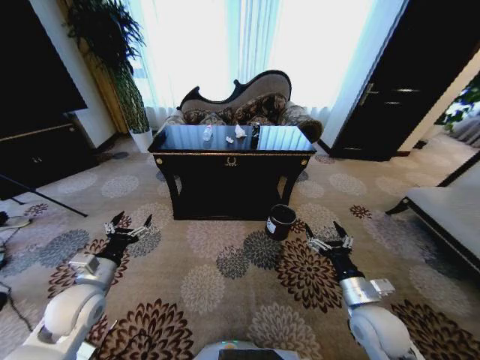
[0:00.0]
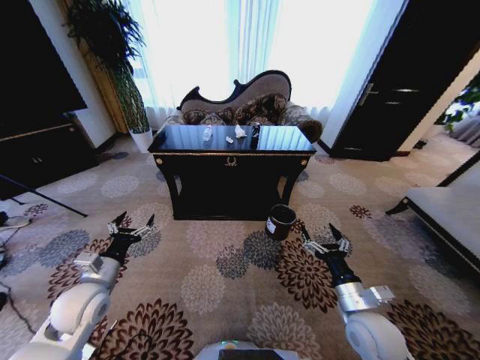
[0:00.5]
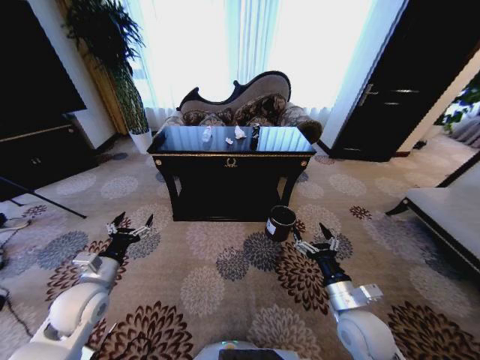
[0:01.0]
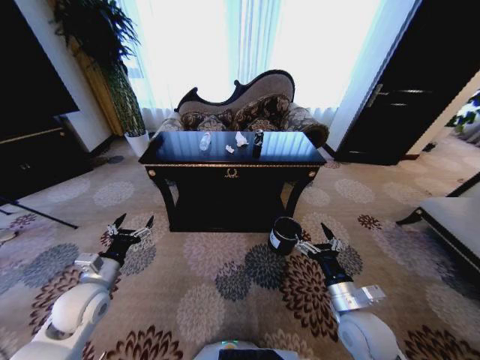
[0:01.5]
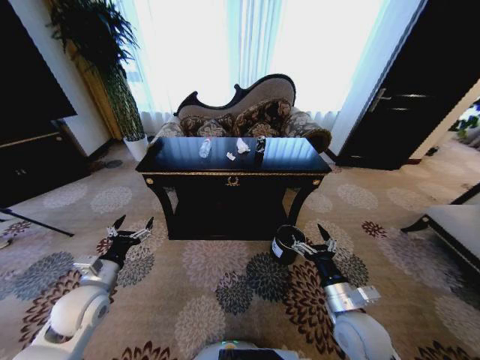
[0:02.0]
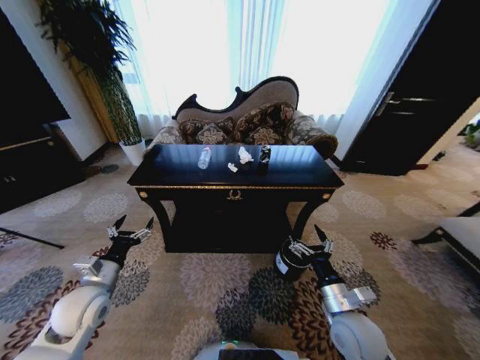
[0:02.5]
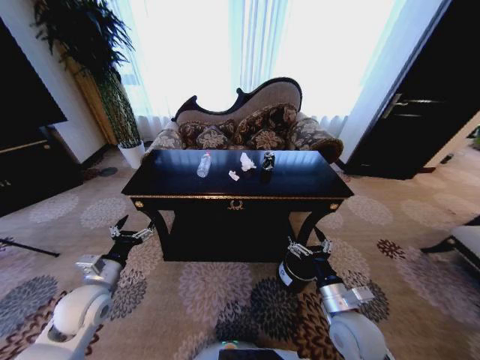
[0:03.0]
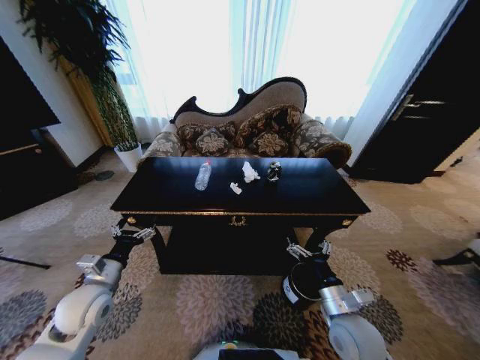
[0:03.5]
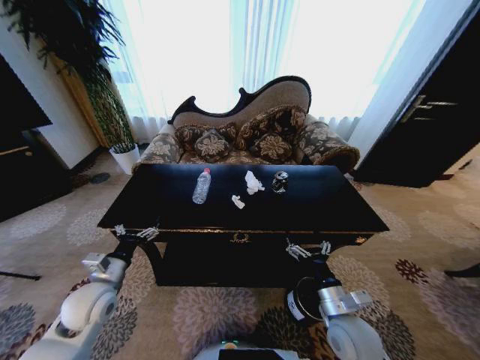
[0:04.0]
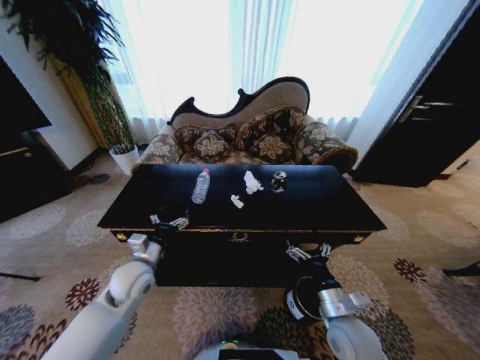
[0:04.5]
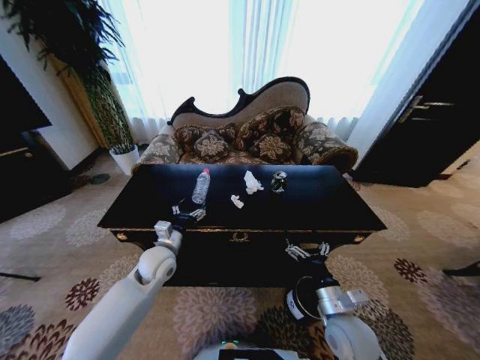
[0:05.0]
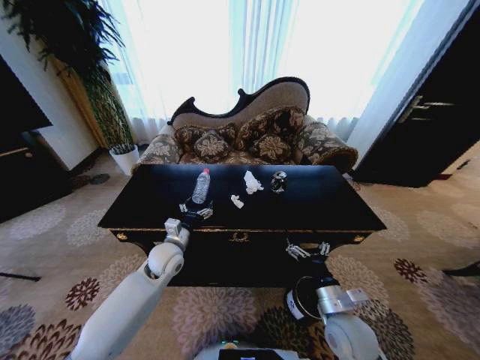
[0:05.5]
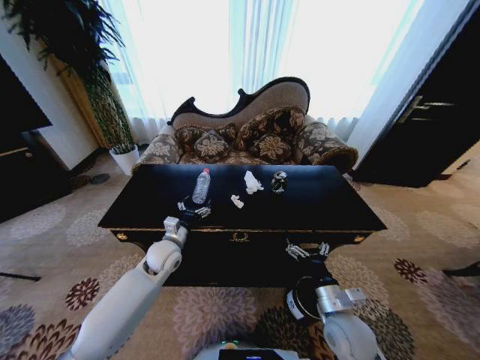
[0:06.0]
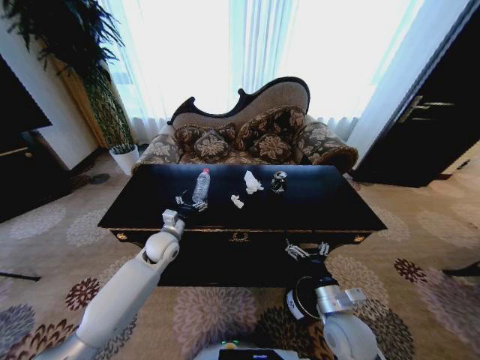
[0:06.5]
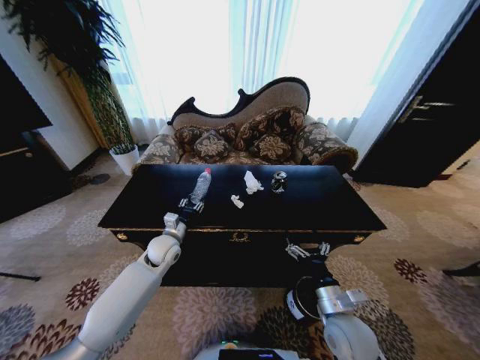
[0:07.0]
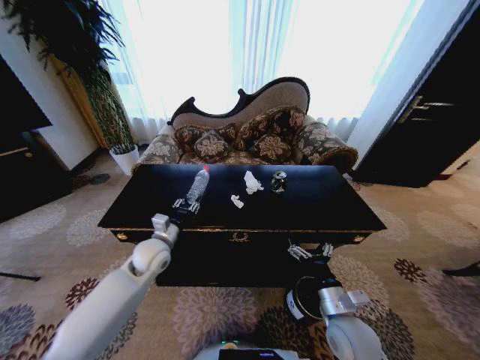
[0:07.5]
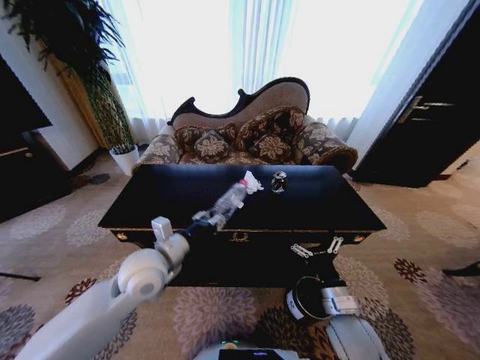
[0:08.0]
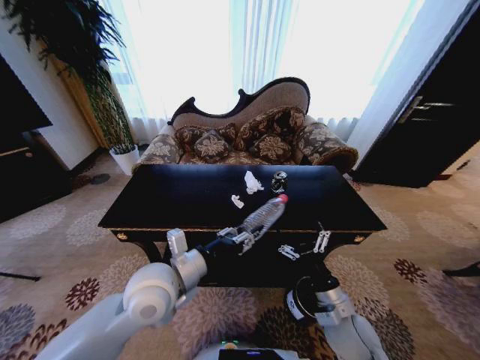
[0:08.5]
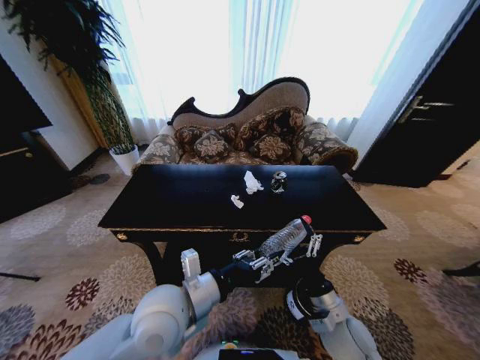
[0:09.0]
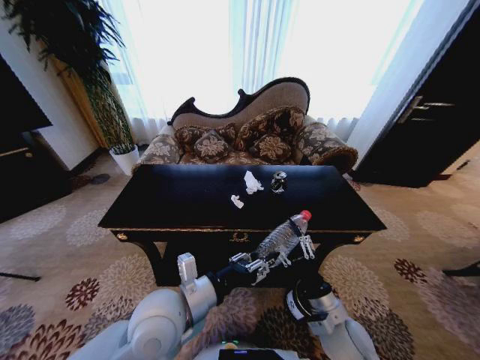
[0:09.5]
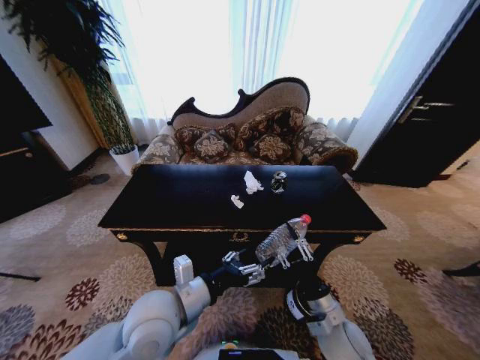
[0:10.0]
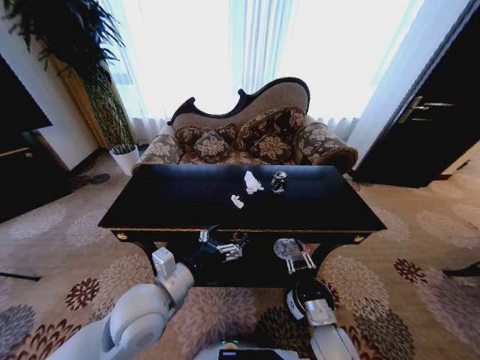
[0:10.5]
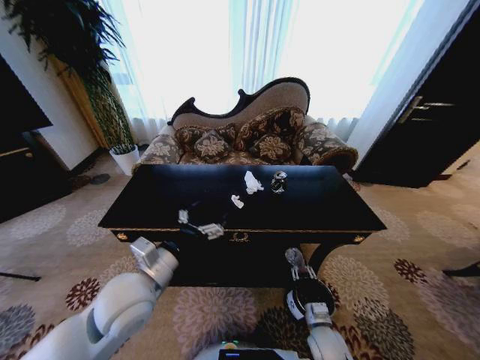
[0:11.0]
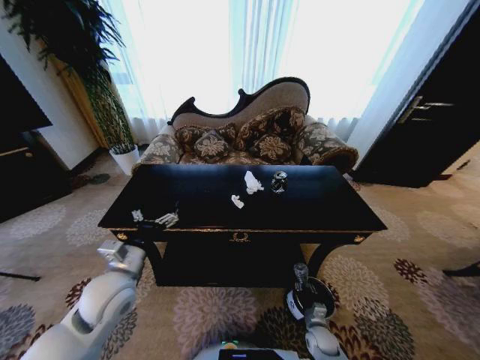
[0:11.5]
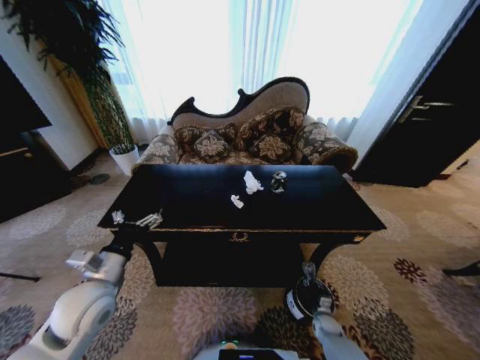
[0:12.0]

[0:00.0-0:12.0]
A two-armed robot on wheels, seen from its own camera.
Task of the whole recording: Move to the front of the table and place the trash on the table into the trash bin.
0:04.0 to 0:06.0: The left gripper goes about 20 cm to the right and forward.
0:06.0 to 0:08.0: The left gripper moves upward and backward, approximately 15 cm, and closes up.
0:08.0 to 0:10.0: The left gripper goes roughly 5 cm backward, and opens up. The right gripper closes.
0:10.0 to 0:12.0: The right gripper goes about 35 cm downward and to the right. The left gripper goes approximately 15 cm to the left, and opens up.

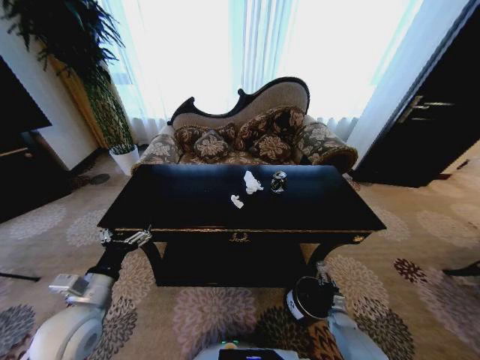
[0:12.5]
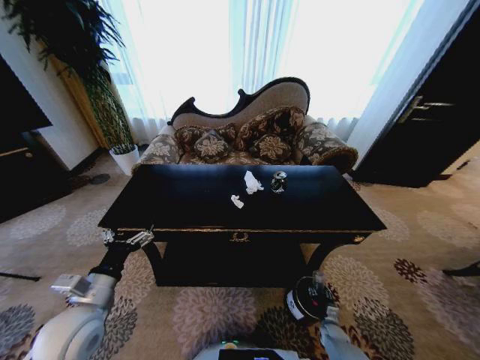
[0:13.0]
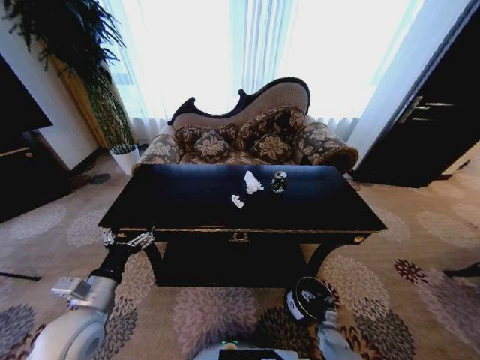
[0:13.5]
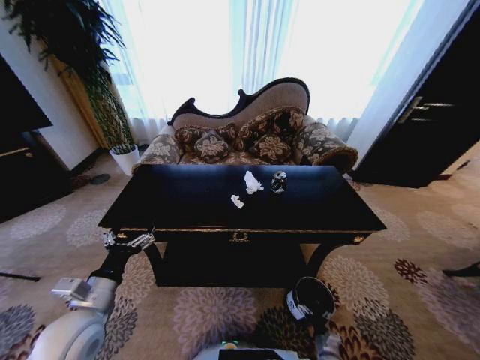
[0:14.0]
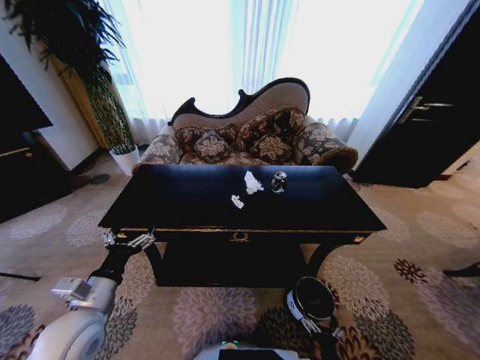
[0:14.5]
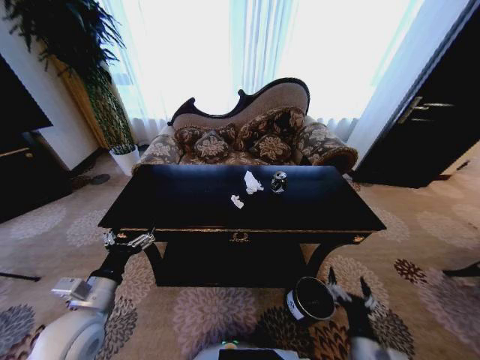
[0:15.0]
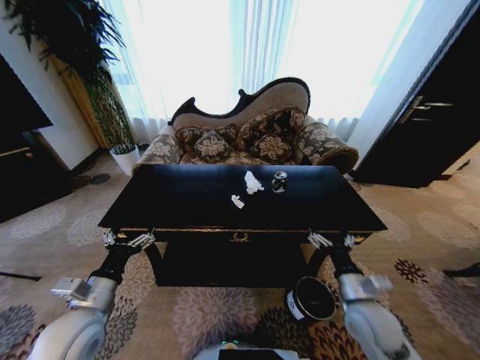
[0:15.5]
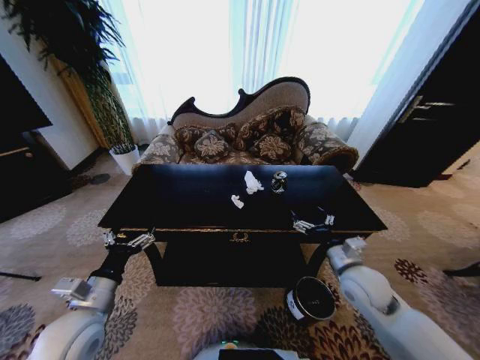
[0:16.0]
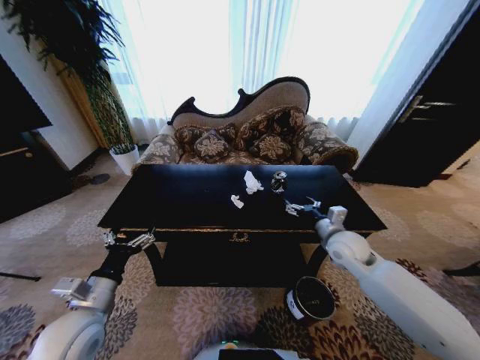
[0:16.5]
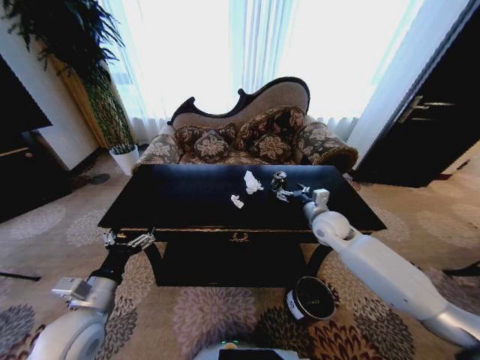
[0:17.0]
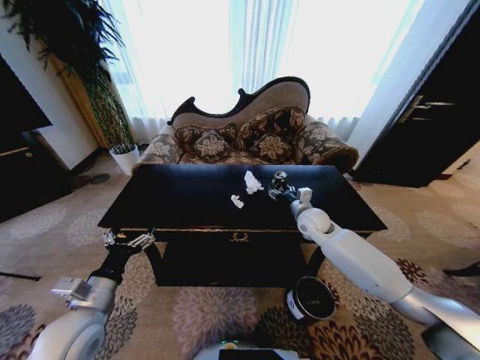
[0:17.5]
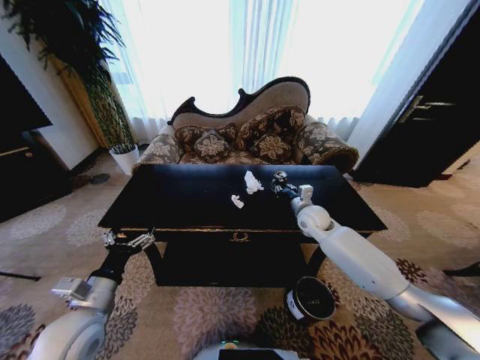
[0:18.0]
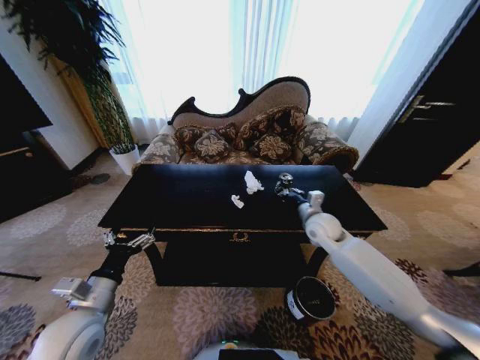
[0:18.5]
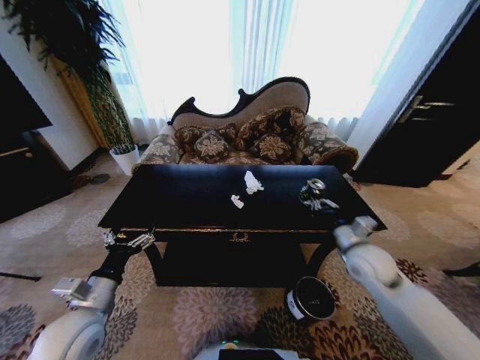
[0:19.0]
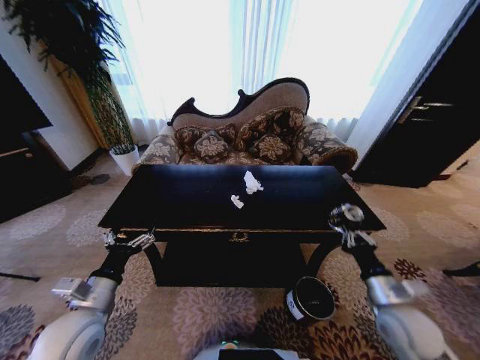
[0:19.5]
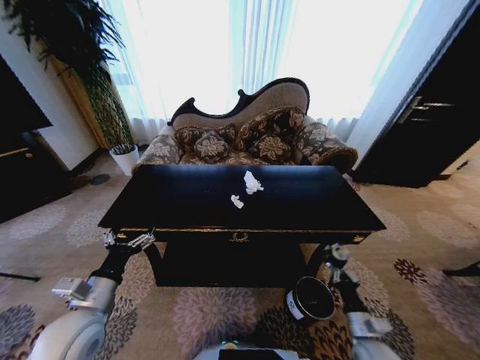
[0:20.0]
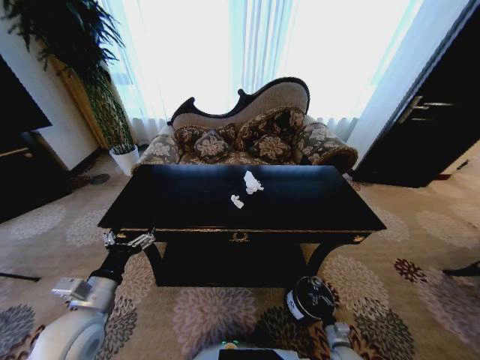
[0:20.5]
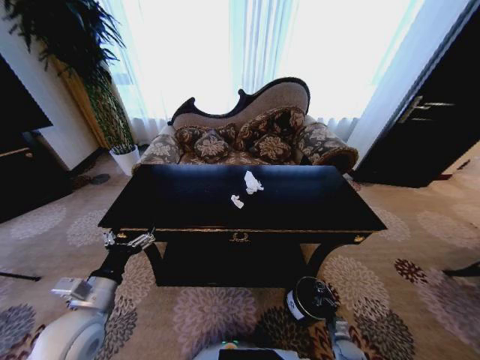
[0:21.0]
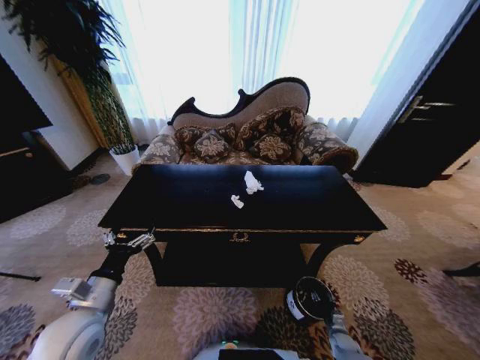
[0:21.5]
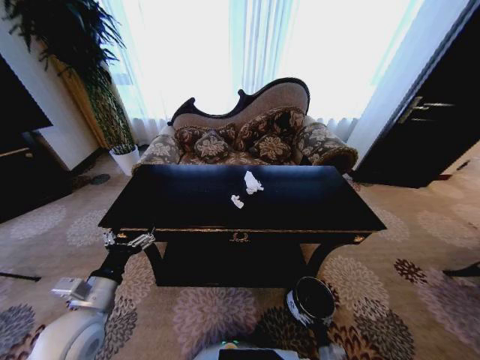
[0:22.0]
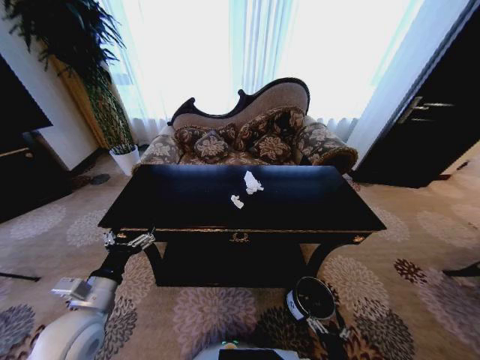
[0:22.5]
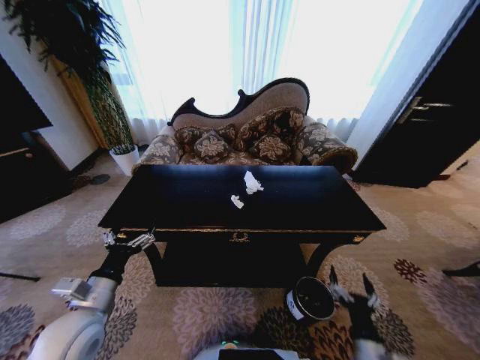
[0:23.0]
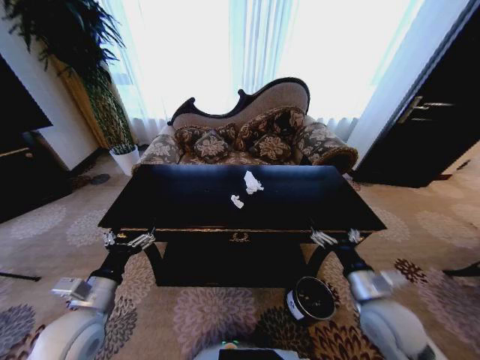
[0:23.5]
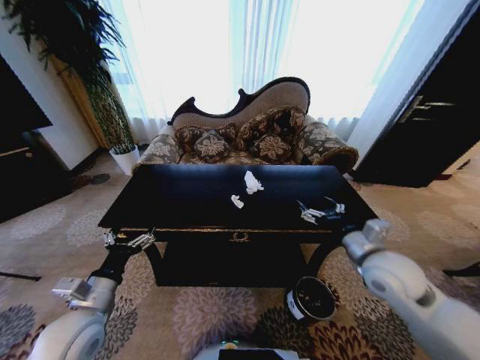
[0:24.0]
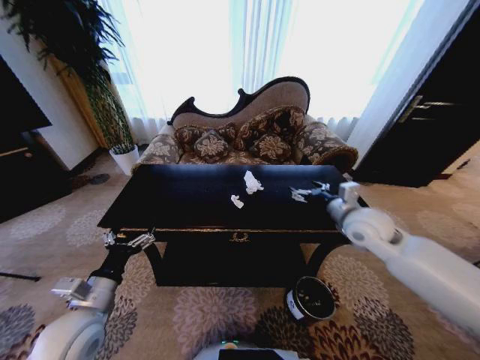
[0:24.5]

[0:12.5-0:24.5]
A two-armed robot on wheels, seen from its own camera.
Task of the whole recording: Move to the front of the table and place the trash on the table into the trash bin.
0:12.5 to 0:14.5: The right gripper travels backward, to the left and upward by some 30 cm, and opens its fingers.
0:14.5 to 0:16.5: The right gripper goes approximately 50 cm forward and upward.
0:16.5 to 0:18.5: The right gripper is displaced forward by approximately 5 cm, and closes its fingers.
0:18.5 to 0:20.5: The right gripper is displaced downward and backward by approximately 50 cm.
0:20.5 to 0:22.5: The right gripper heads backward, to the left and upward, covering some 15 cm, and opens its fingers.
0:22.5 to 0:24.5: The right gripper moves upward and forward, some 50 cm.

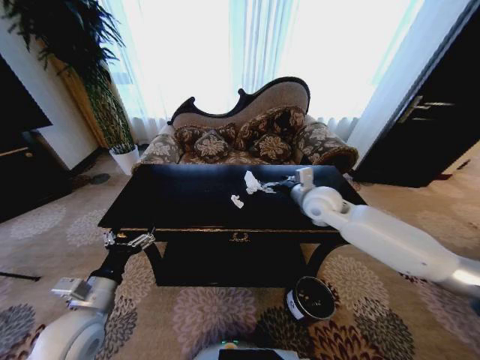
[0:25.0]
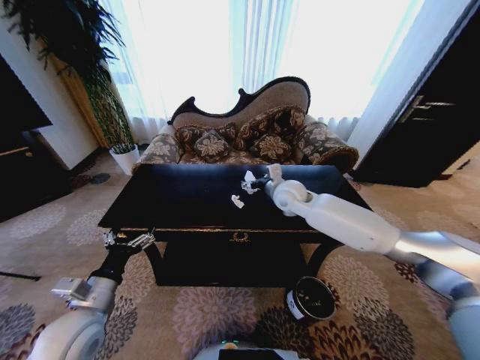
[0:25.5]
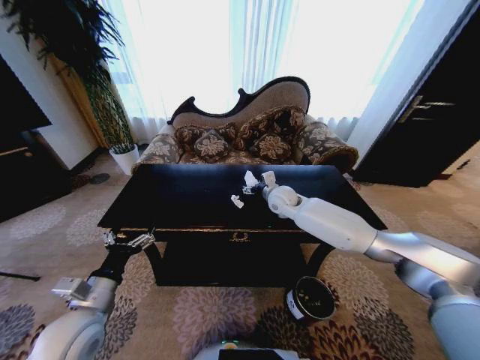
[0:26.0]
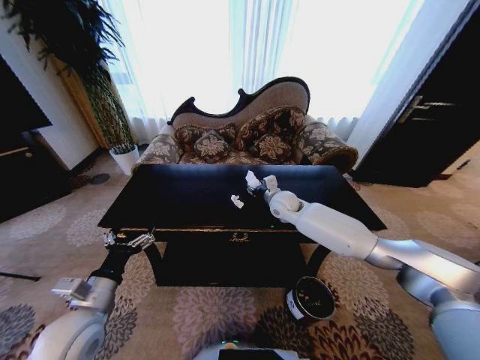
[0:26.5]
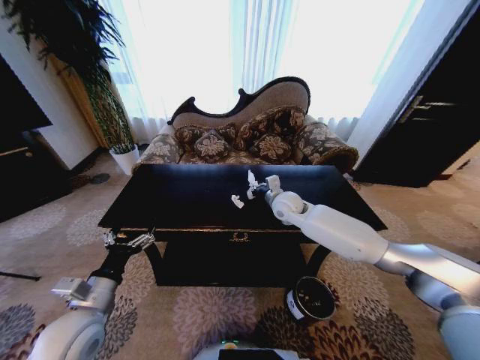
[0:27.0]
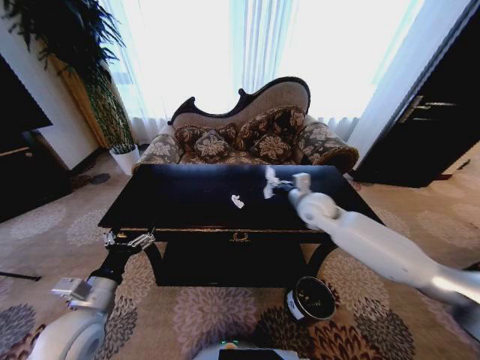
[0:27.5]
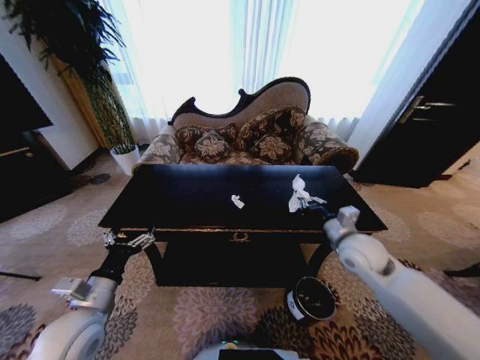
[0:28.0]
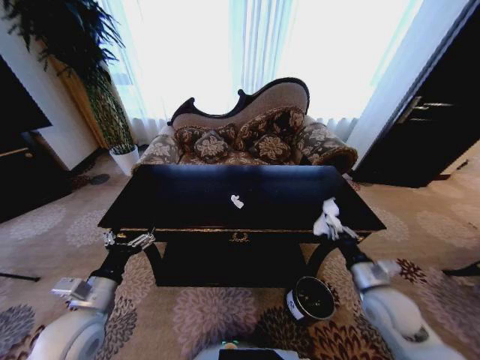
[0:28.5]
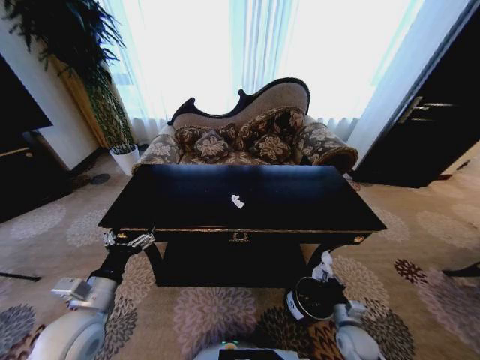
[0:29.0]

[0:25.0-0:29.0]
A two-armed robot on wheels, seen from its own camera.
Task of the whole recording: Move to the front of the table and place the trash on the table into the trash bin.
0:25.0 to 0:27.0: The right gripper goes roughly 10 cm to the left, downward and forward, and closes.
0:27.0 to 0:29.0: The right gripper is displaced backward, downward and to the right by approximately 50 cm.
